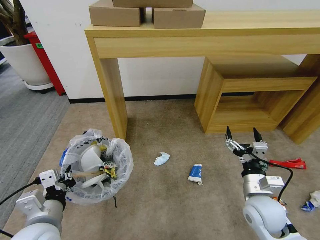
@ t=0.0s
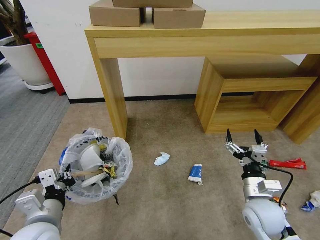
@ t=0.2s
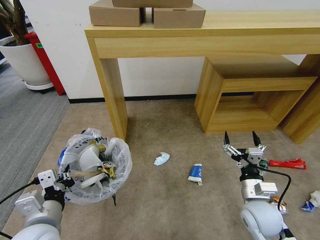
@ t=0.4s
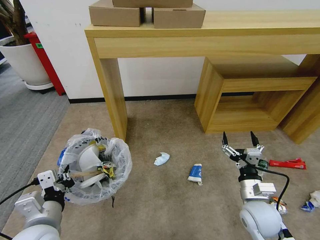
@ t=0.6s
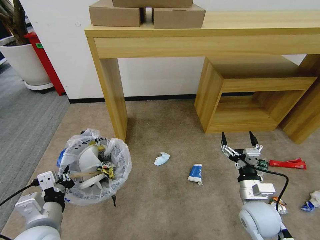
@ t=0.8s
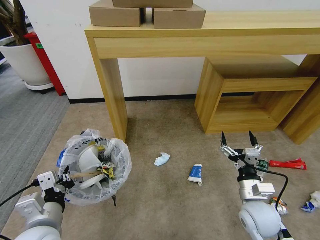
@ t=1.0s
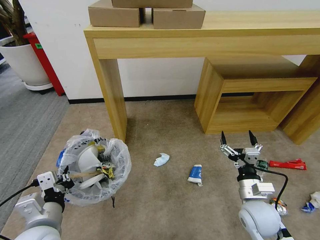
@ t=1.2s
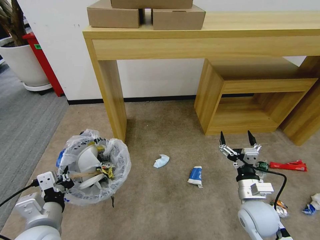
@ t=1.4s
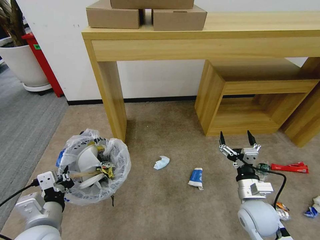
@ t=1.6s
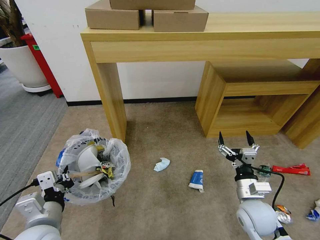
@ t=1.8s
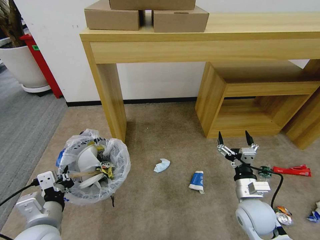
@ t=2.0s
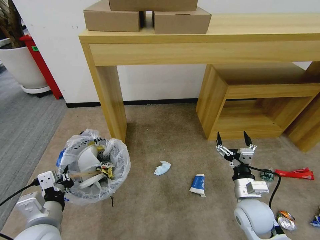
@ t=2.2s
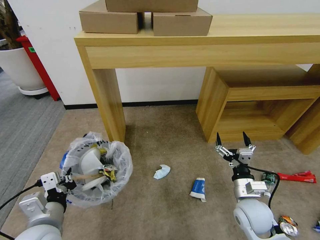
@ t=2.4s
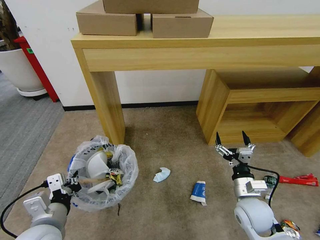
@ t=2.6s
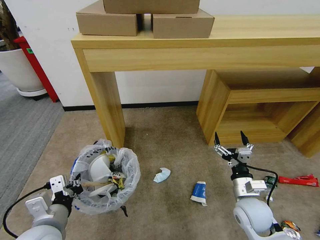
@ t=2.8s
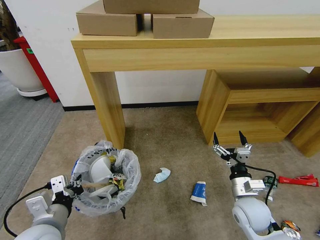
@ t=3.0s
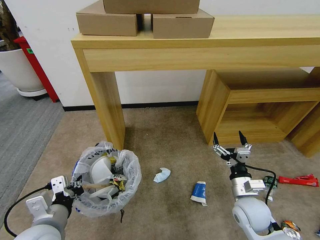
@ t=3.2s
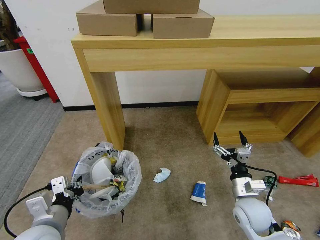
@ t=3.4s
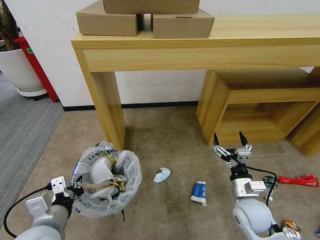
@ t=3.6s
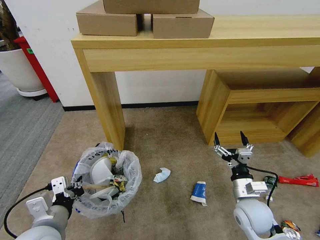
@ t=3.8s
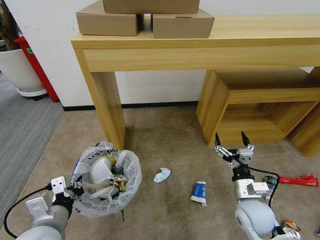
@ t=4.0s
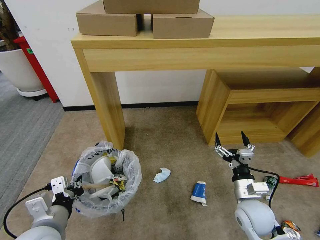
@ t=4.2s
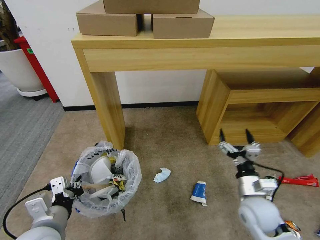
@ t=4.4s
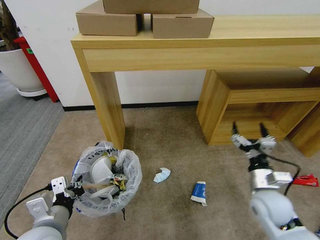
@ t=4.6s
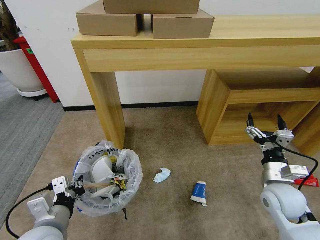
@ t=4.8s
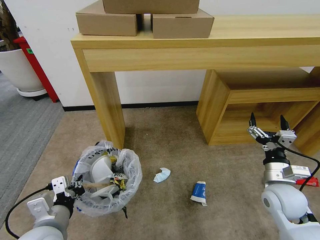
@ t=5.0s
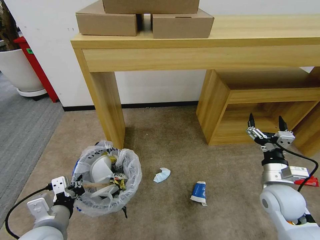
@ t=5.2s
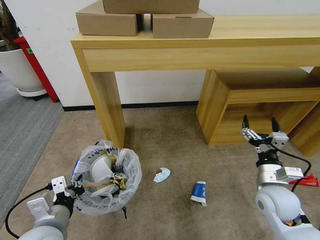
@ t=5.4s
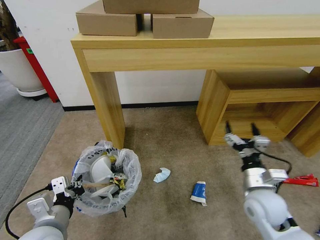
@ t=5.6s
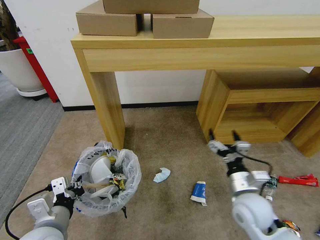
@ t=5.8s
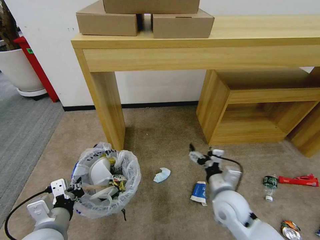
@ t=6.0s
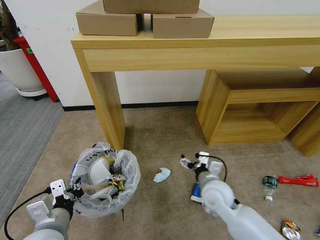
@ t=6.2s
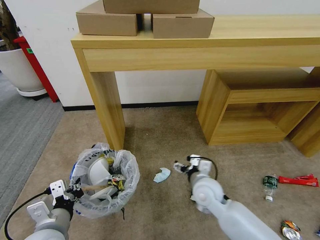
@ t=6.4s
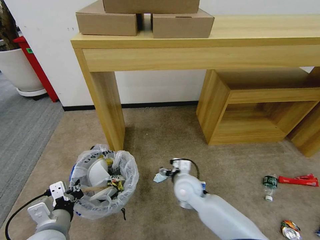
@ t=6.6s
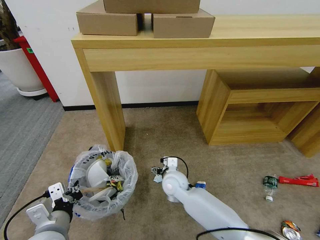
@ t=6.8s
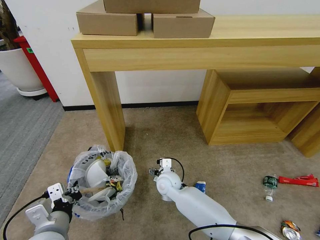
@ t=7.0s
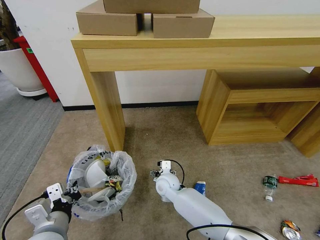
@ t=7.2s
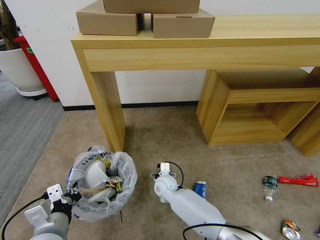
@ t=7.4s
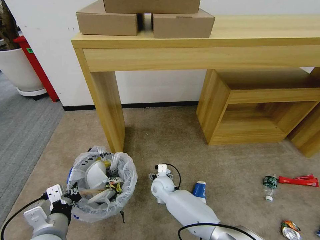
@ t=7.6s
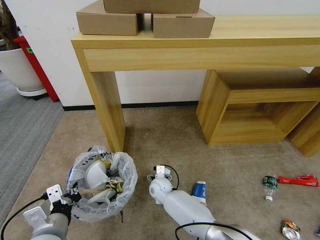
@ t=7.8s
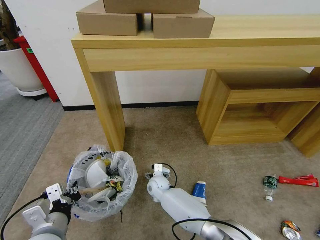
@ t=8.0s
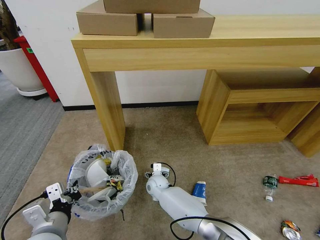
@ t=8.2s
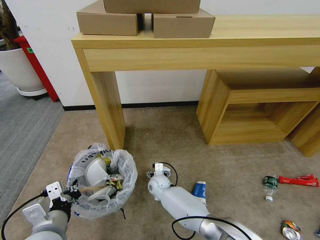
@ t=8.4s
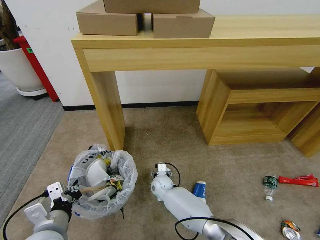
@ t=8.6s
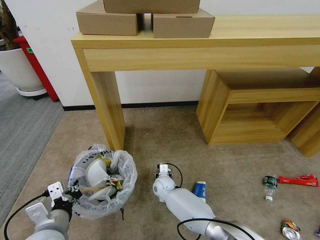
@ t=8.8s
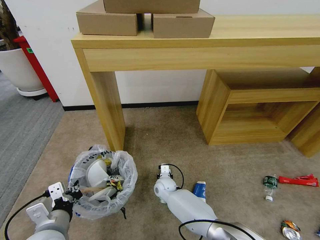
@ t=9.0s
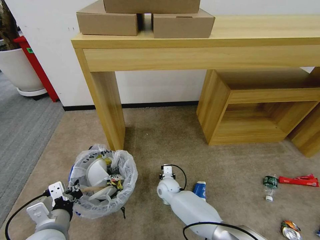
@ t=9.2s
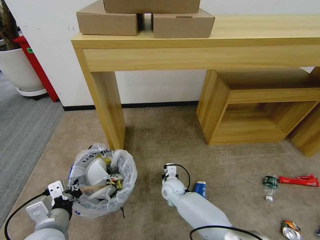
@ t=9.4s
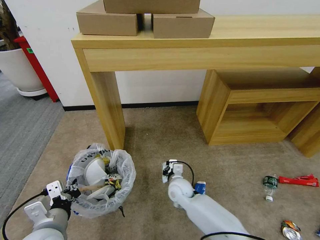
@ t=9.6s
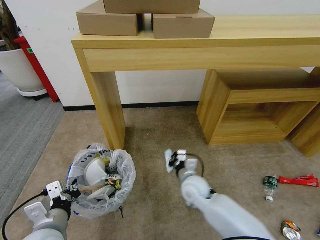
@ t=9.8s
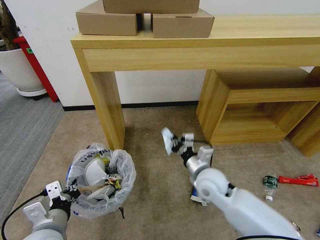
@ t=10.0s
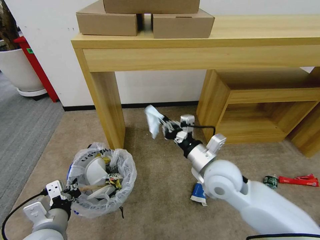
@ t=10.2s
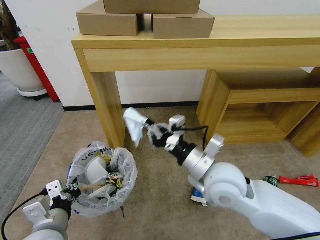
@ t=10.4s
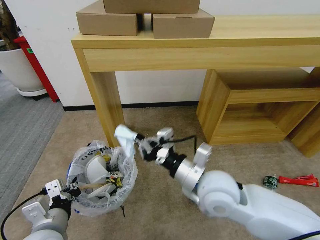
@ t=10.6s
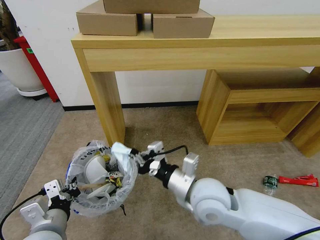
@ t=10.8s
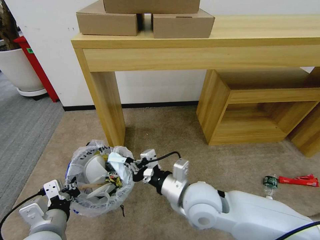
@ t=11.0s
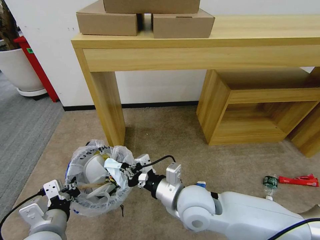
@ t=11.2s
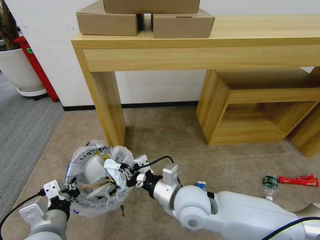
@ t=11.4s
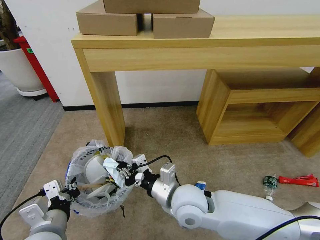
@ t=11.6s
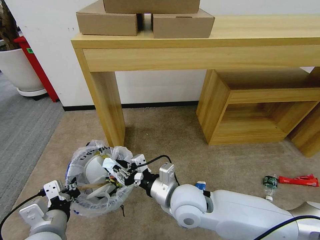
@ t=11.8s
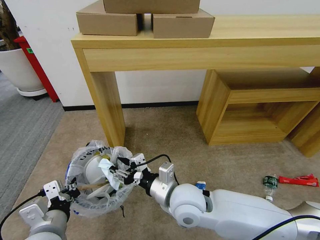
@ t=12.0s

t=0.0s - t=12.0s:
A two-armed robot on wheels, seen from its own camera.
Task of the whole recording: Pick up the trash bin and place the garbage on the floor into it.
t=0.0s - t=1.6s: The grippers stay close to where they were, moving slightly.
t=3.0s - t=4.4s: The grippers move only a little.
t=4.4s - t=6.0s: The right gripper travels to the left by roughly 5 cm.
t=6.0s - t=7.6s: The right gripper shifts about 30 cm to the left, downward and forward.
t=7.6s - t=9.0s: The right gripper closes.
t=9.0s - t=10.4s: The right gripper is displaced upward and backward by approximately 35 cm, and closes.
t=10.4s - t=12.0s: The right gripper is displaced to the left and downward by some 10 cm, and opens.

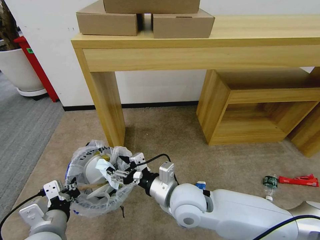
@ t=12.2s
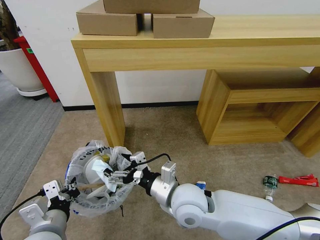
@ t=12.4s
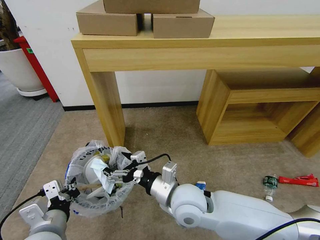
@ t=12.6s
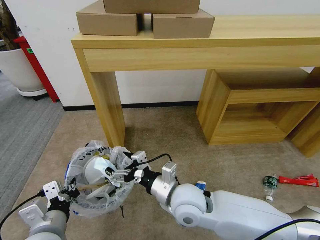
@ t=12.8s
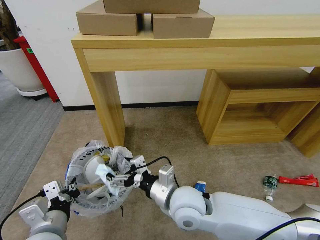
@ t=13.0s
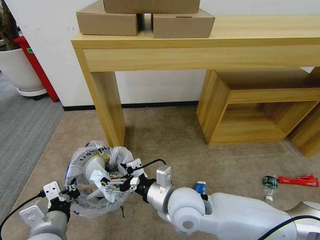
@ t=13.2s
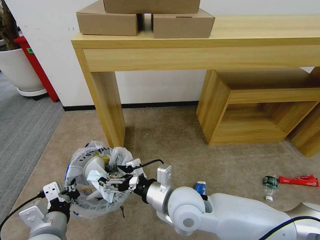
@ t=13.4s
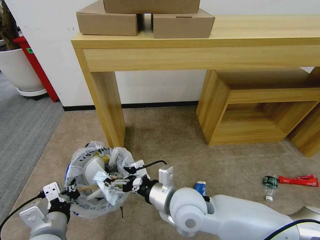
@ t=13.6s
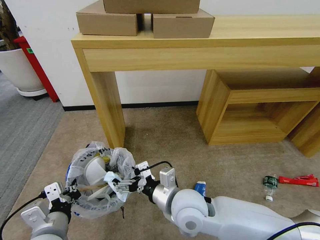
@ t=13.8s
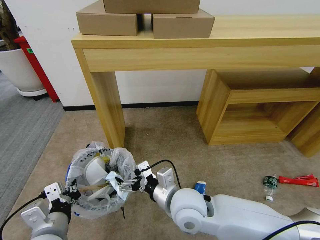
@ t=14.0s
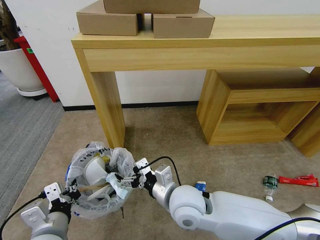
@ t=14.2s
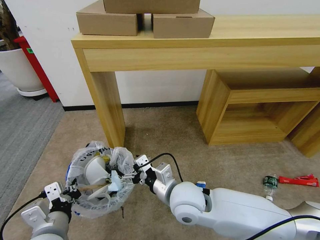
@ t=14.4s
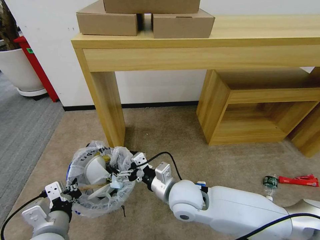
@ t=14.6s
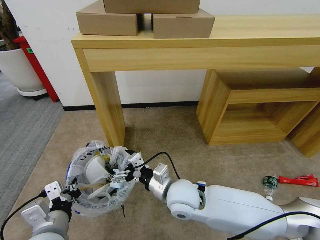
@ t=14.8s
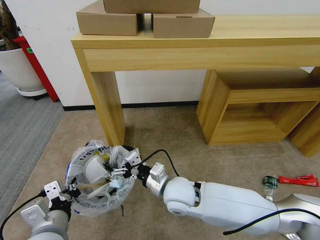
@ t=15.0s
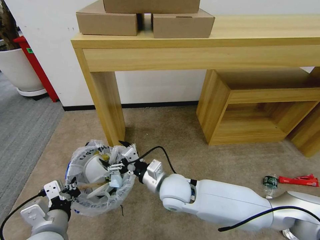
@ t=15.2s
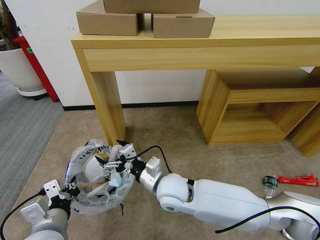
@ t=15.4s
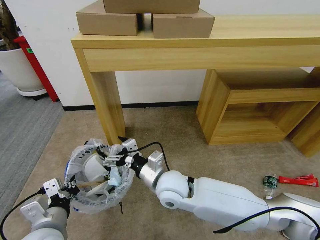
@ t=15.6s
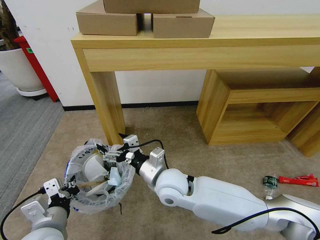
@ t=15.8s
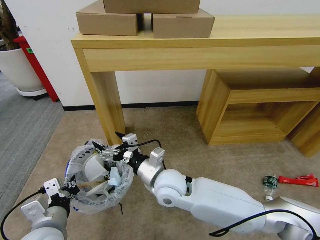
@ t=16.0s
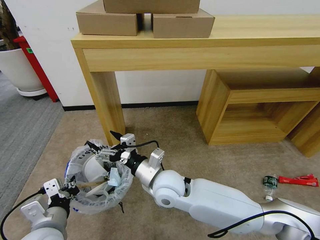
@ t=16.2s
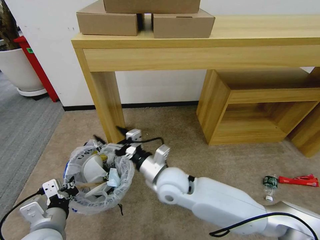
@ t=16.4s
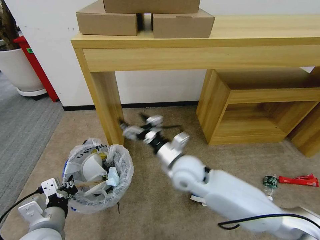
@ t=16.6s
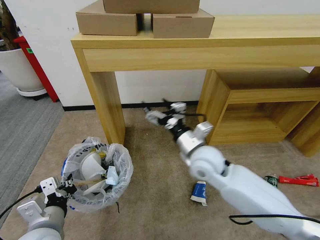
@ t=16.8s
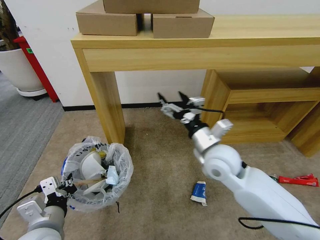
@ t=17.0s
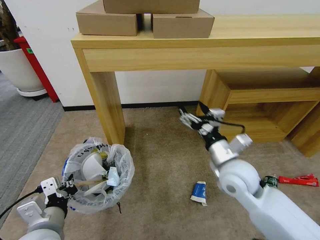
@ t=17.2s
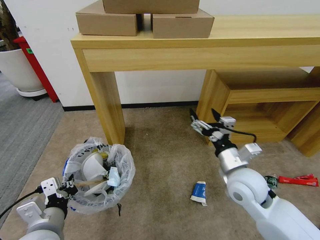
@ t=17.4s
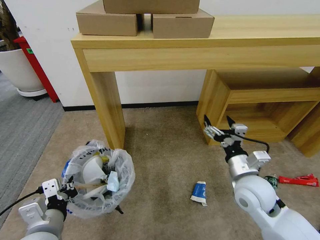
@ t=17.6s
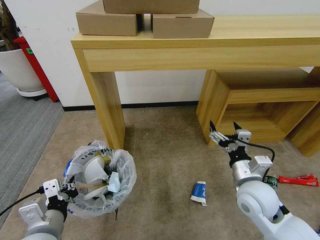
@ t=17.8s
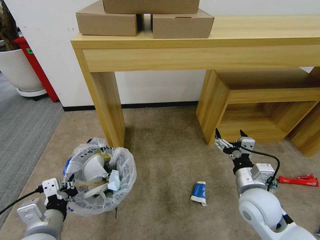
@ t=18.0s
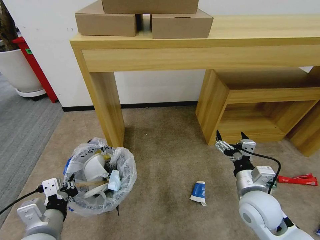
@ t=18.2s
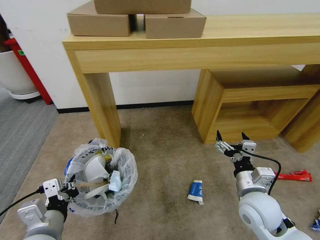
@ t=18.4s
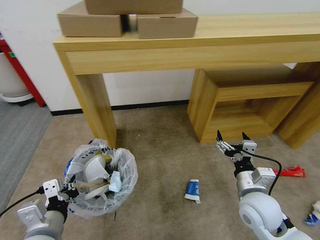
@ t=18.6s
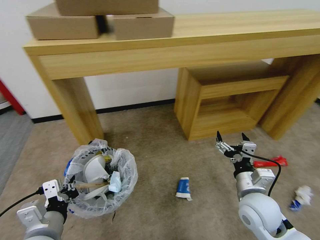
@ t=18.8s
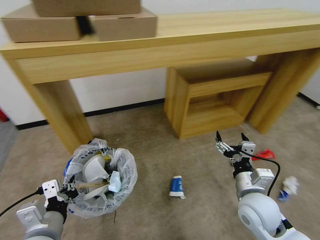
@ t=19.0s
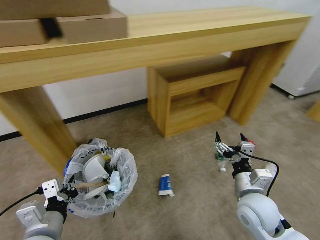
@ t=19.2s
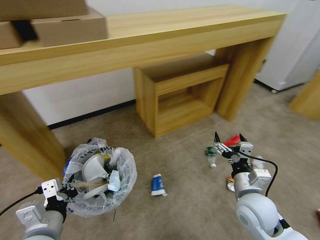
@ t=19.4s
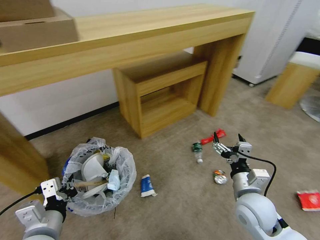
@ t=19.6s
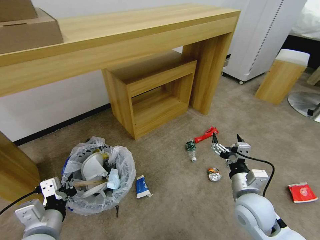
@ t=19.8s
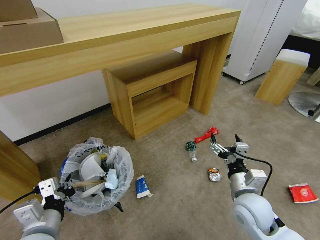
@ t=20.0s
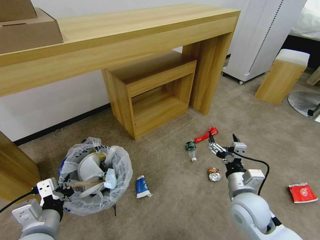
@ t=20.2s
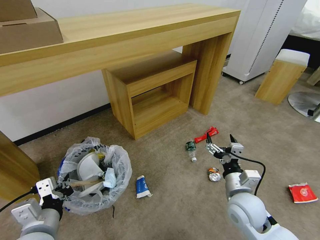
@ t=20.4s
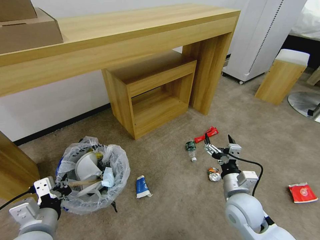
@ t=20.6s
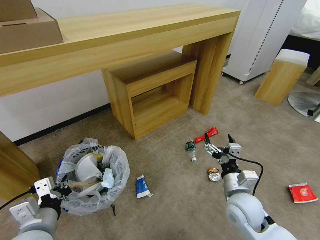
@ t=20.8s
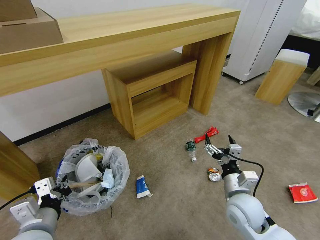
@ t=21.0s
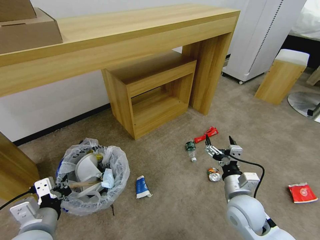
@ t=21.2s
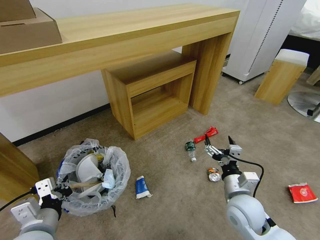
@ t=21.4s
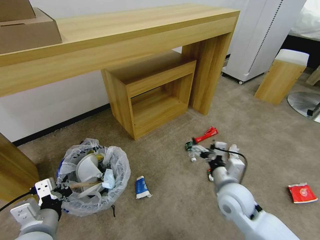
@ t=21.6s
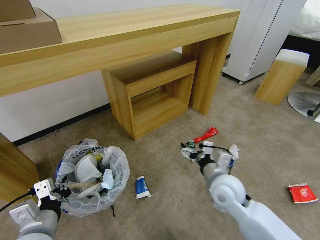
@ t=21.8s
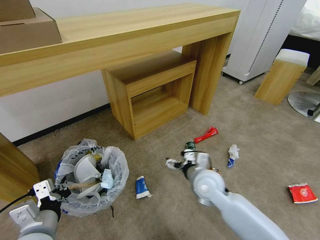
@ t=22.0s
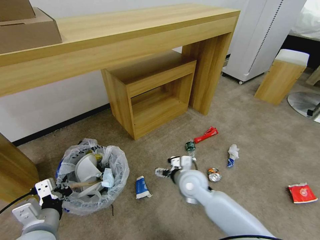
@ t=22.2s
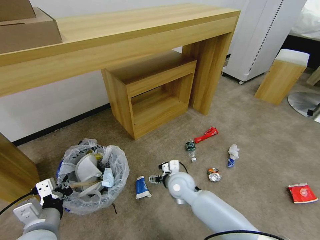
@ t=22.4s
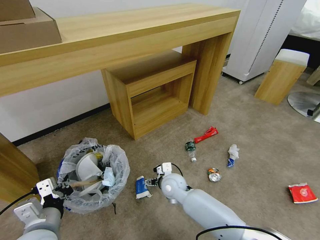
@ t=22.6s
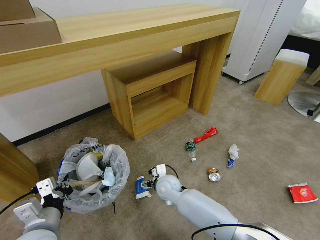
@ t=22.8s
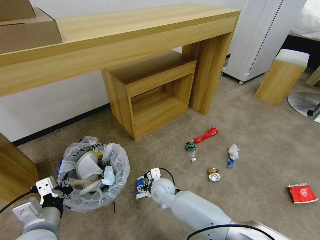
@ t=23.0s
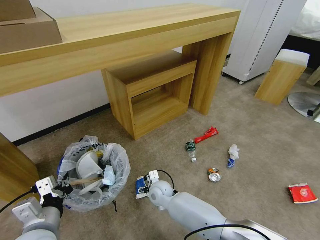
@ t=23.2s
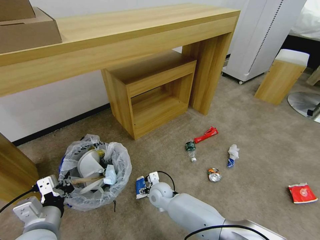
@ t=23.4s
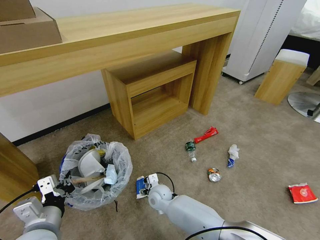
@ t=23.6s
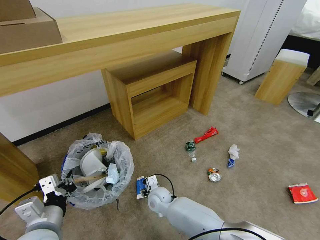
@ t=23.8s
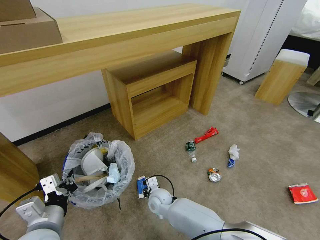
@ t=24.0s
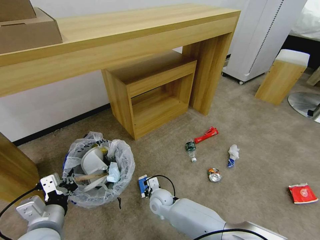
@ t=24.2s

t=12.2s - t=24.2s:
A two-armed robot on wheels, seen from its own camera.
Task of the whole recording: Pick up the trash bin and place the garbage on the floor into it.
t=12.2s - t=13.8s: The grippers make only small movements.
t=13.8s - t=15.2s: The right gripper travels forward by some 5 cm.
t=15.2s - t=16.6s: The right gripper travels upward by approximately 5 cm.
t=16.6s - t=18.2s: The right gripper travels to the right and backward by approximately 20 cm.
t=19.8s - t=21.2s: There are only small adjustments of the grippers.
t=21.2s - t=22.6s: The right gripper moves to the left, forward and downward, about 25 cm.
t=22.6s - t=24.2s: The right gripper heads downward and to the left, covering about 10 cm, and closes.
